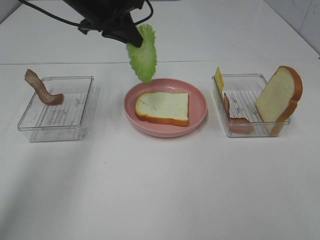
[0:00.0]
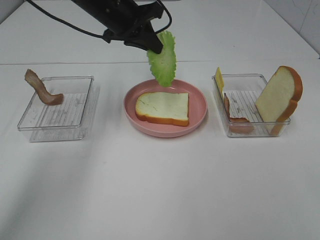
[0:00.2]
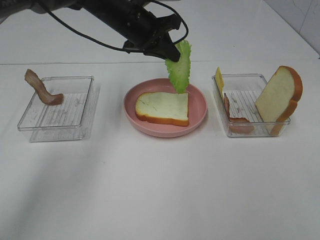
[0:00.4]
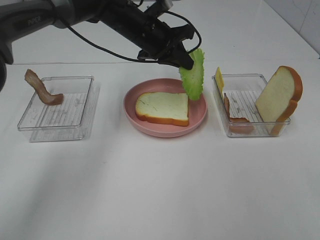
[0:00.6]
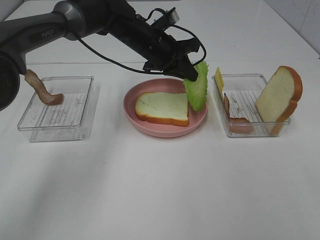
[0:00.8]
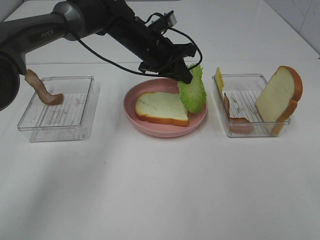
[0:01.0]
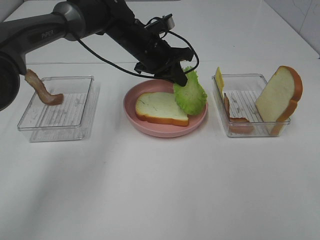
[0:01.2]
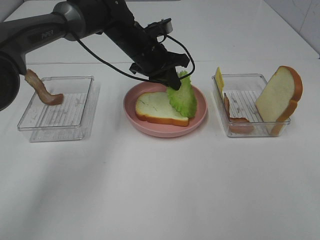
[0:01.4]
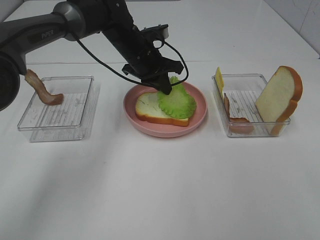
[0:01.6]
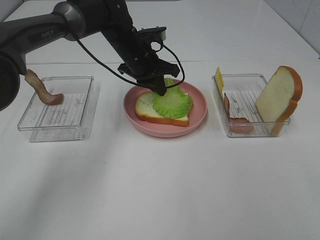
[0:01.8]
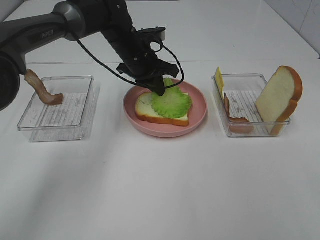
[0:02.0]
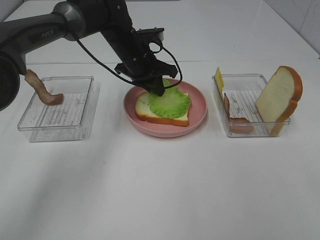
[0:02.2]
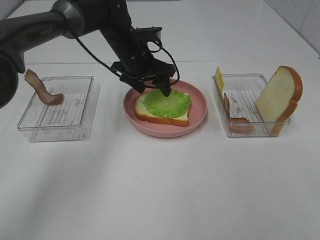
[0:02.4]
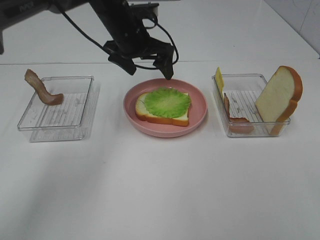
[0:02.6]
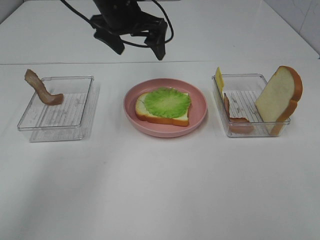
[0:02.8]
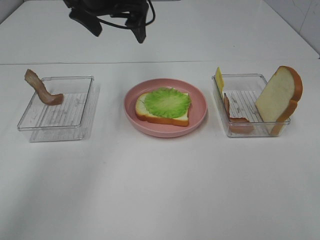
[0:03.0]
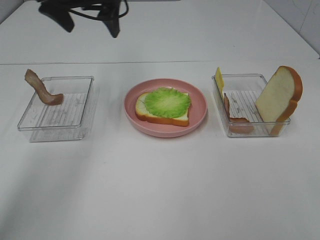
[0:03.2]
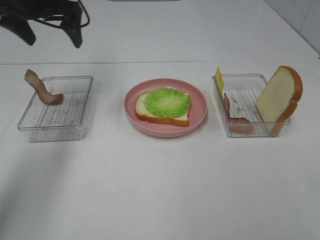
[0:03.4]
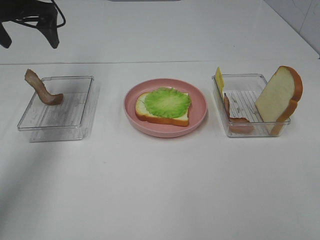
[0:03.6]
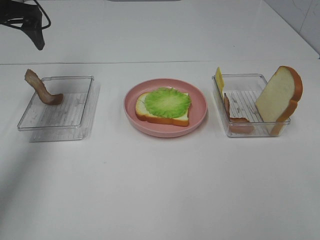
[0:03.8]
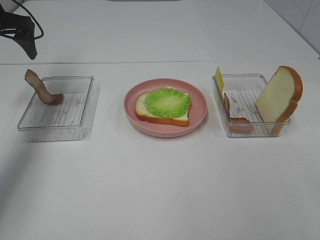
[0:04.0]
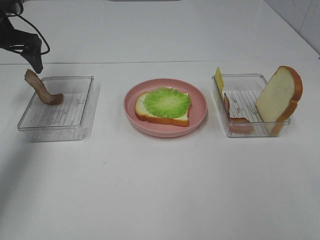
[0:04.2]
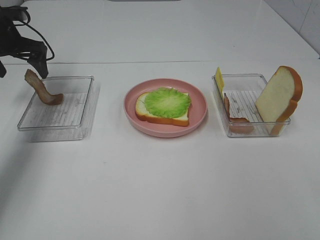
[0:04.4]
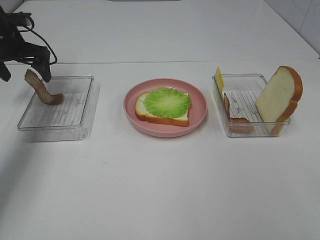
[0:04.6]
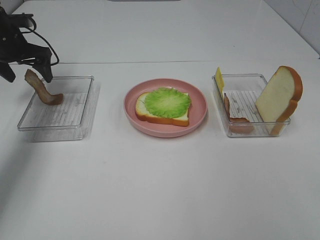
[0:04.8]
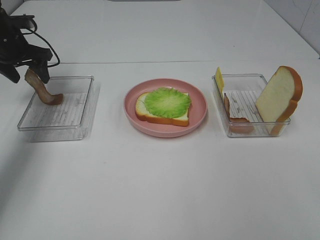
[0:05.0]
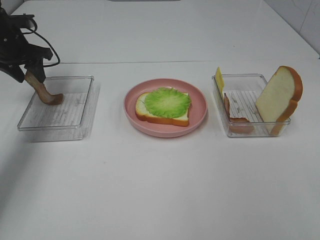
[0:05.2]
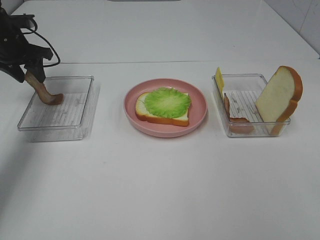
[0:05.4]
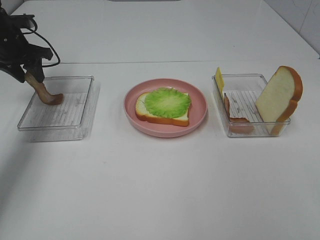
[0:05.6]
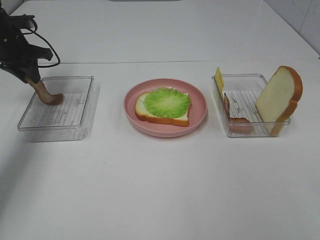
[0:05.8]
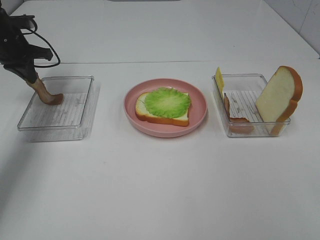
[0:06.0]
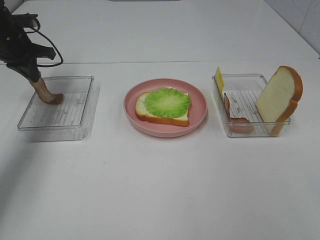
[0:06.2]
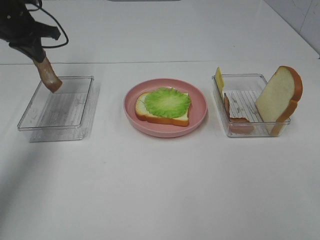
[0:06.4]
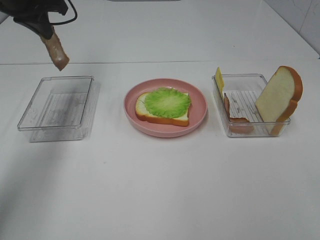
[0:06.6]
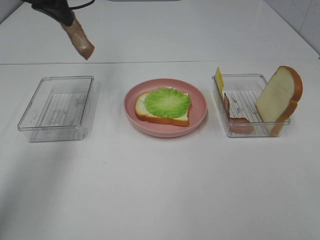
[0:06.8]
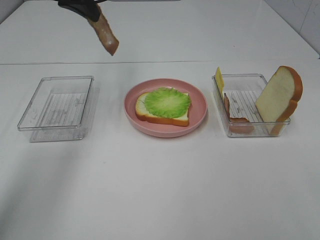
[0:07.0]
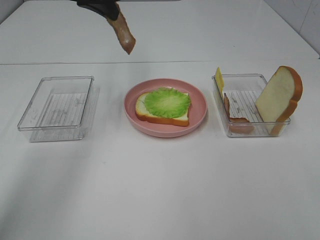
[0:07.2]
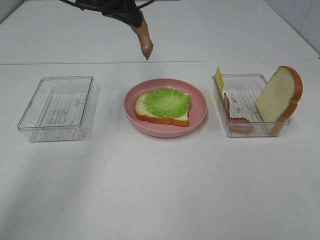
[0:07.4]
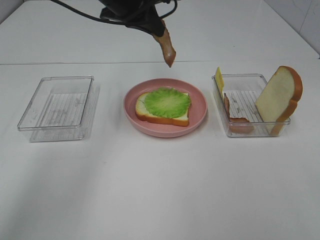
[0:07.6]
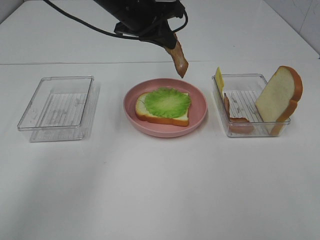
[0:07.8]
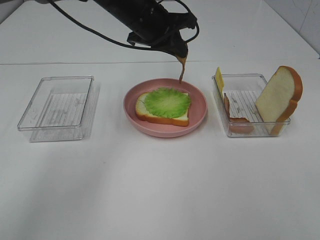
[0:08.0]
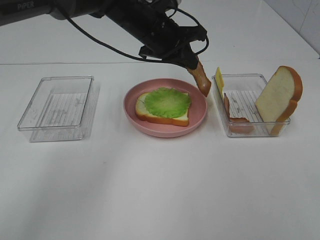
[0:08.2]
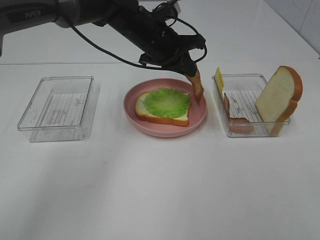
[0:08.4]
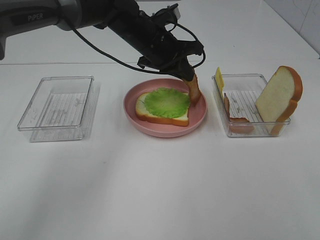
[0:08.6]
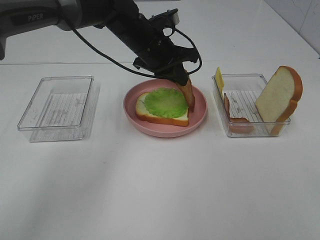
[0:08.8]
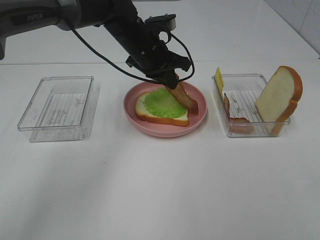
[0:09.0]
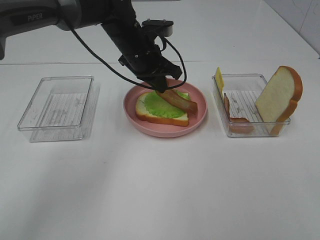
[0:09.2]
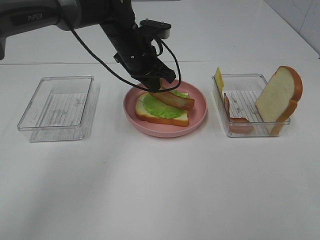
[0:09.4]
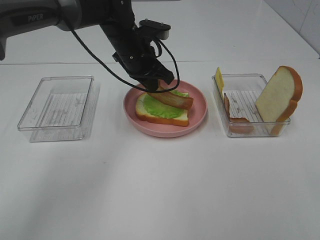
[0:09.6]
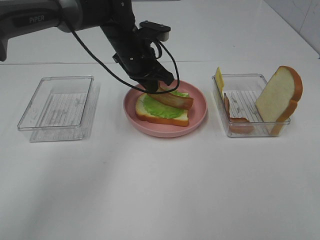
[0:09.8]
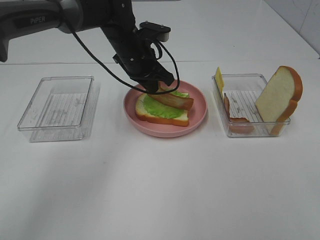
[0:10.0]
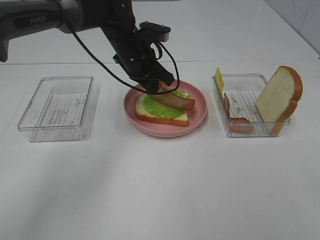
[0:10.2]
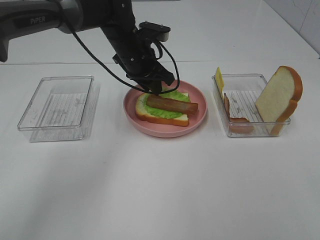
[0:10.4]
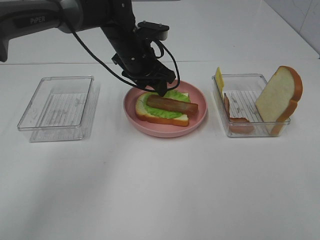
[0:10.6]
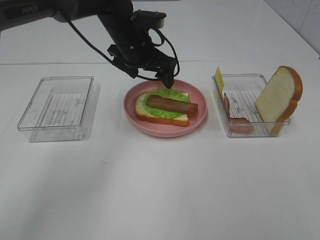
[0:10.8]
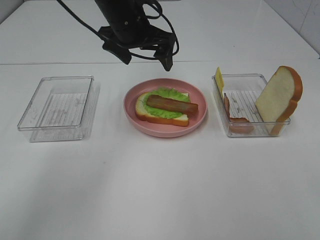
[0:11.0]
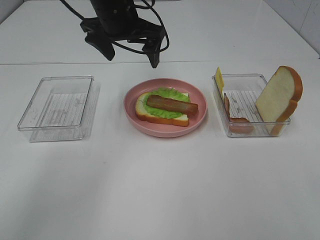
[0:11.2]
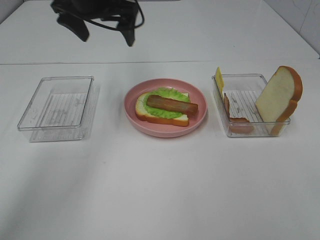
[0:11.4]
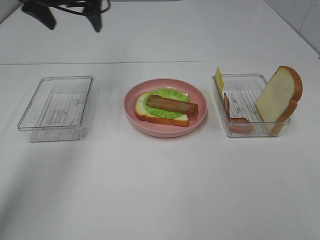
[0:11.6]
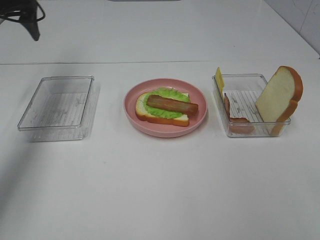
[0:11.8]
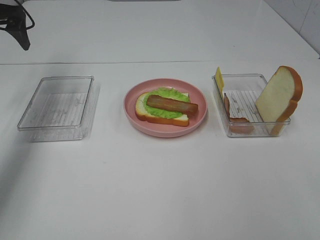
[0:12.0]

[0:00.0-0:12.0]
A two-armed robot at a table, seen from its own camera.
Task of the whole recording: Make sandwiches.
Step, 0:00.0 to 0:02.6: Left hand:place the lettuce slice on the bread slice.
Step, 0:02.8 to 0:06.2: Left hand:grab the bacon.
Step, 0:06.4 to 0:10.6: Left hand:place bacon on lettuce slice.
0:00.0 to 0:01.6: The left gripper shifts about 15 cm downward and to the right.
0:01.6 to 0:03.0: The left gripper goes some 15 cm upward and to the left, and opens up.
0:03.0 to 0:04.4: The left gripper goes about 25 cm to the left and downward.
0:04.4 to 0:06.0: The left gripper closes its fingers.
0:06.0 to 0:07.6: The left gripper goes about 25 cm to the right and upward.
0:07.6 to 0:09.0: The left gripper travels downward by some 10 cm.
0:09.0 to 0:10.4: The grippers move only a little.
0:10.4 to 0:12.0: The left gripper is displaced to the left by roughly 30 cm, and opens its fingers.

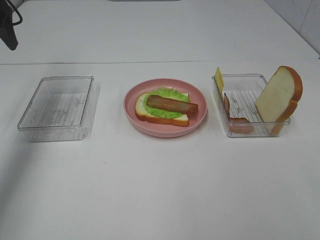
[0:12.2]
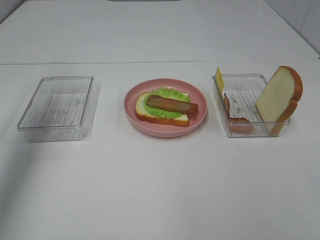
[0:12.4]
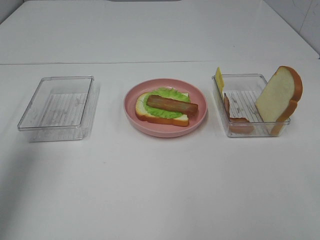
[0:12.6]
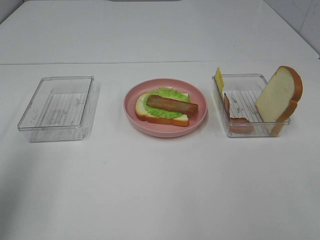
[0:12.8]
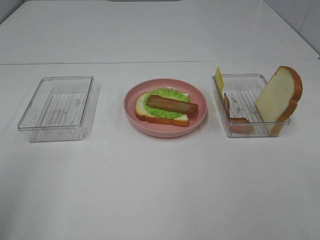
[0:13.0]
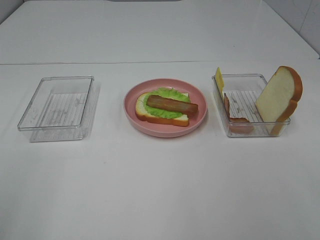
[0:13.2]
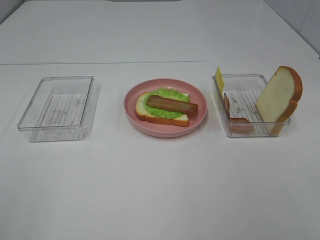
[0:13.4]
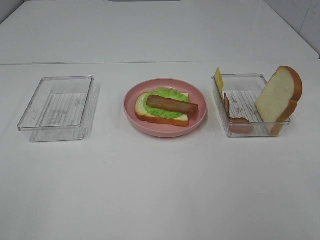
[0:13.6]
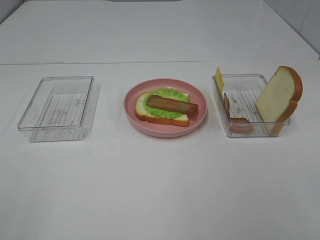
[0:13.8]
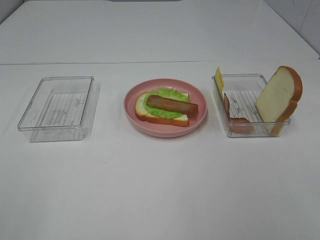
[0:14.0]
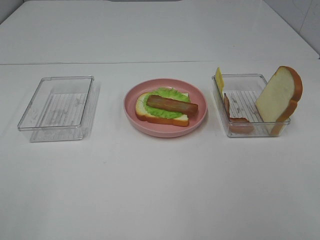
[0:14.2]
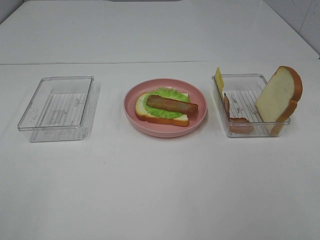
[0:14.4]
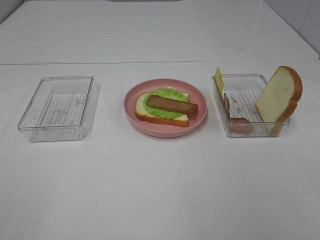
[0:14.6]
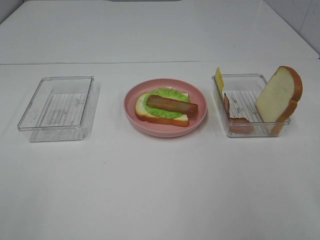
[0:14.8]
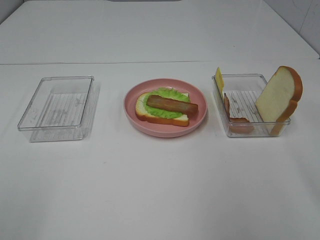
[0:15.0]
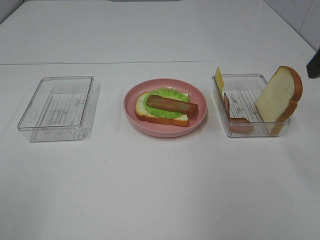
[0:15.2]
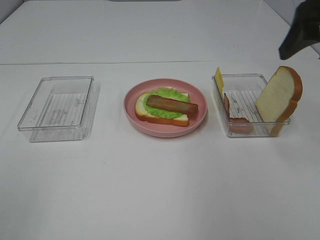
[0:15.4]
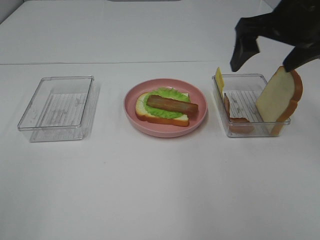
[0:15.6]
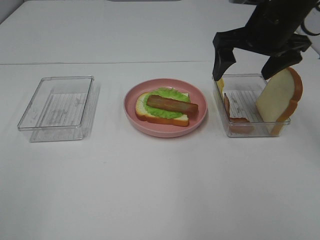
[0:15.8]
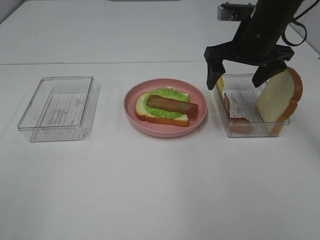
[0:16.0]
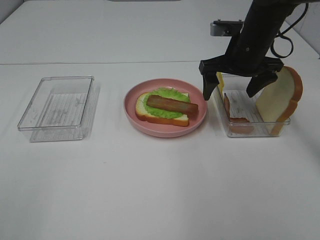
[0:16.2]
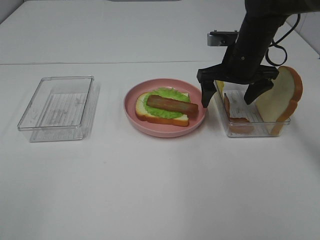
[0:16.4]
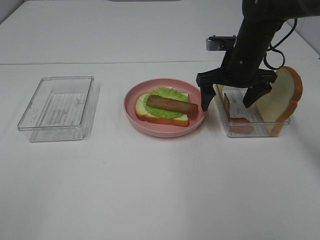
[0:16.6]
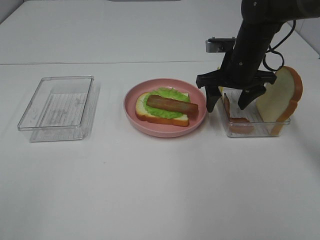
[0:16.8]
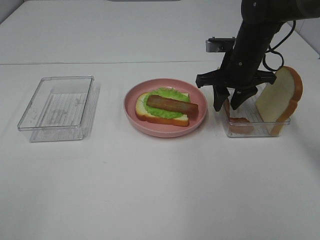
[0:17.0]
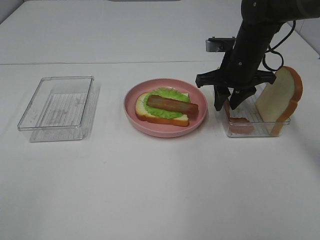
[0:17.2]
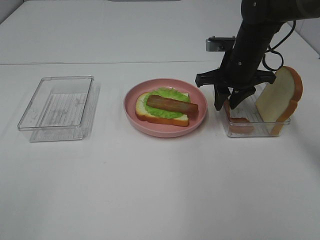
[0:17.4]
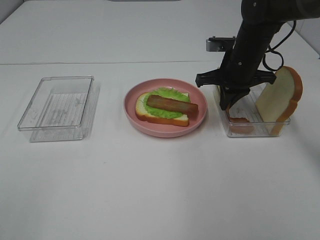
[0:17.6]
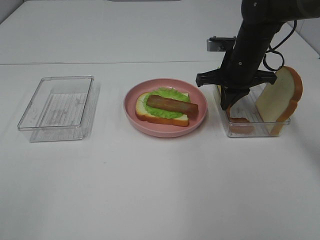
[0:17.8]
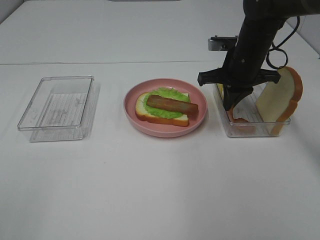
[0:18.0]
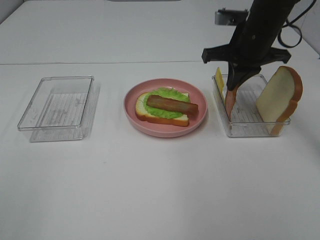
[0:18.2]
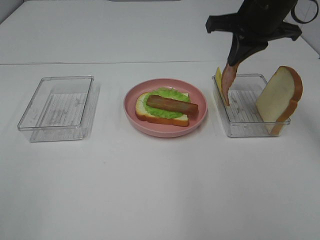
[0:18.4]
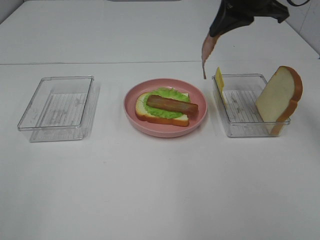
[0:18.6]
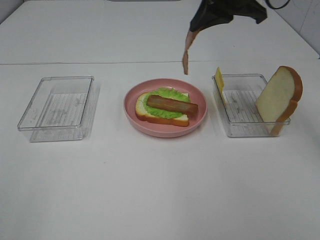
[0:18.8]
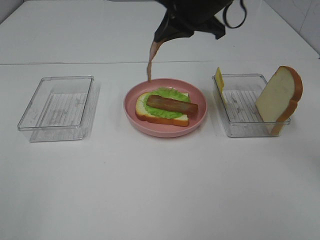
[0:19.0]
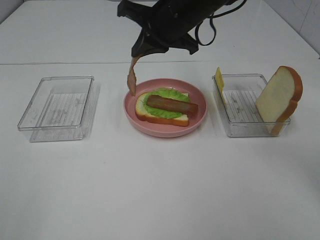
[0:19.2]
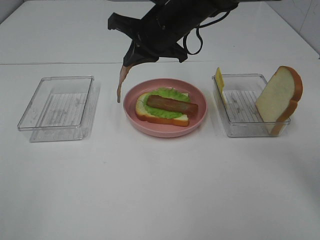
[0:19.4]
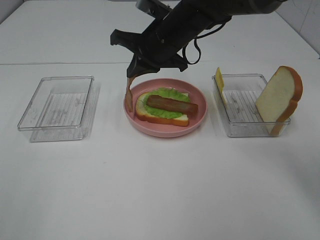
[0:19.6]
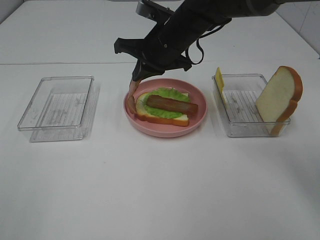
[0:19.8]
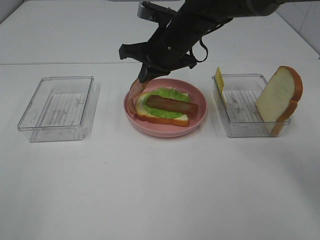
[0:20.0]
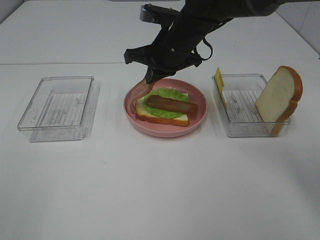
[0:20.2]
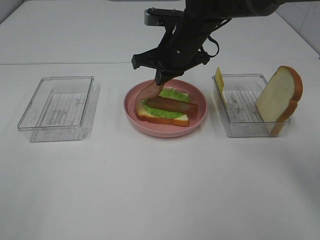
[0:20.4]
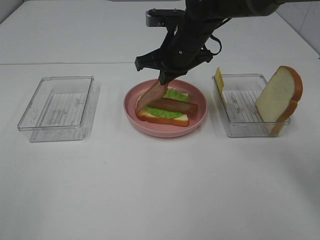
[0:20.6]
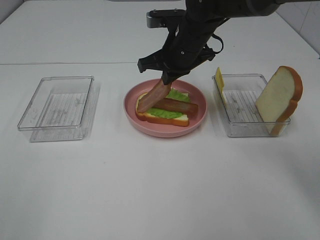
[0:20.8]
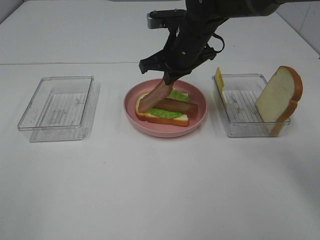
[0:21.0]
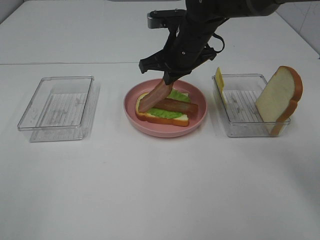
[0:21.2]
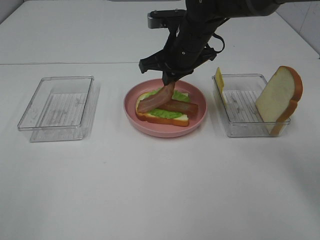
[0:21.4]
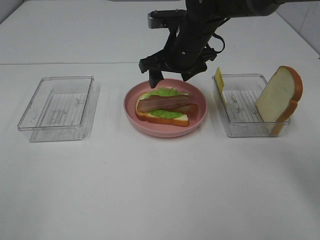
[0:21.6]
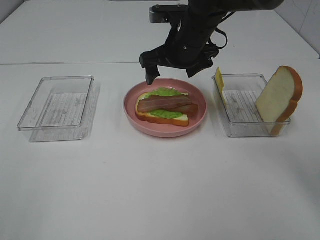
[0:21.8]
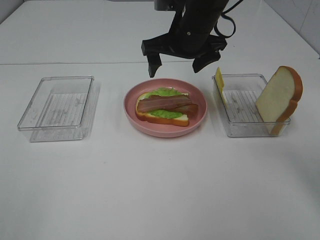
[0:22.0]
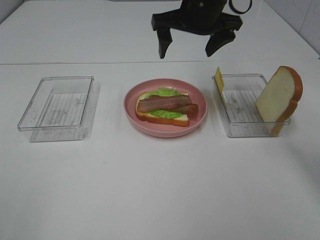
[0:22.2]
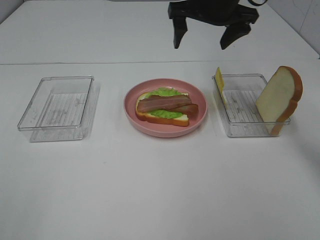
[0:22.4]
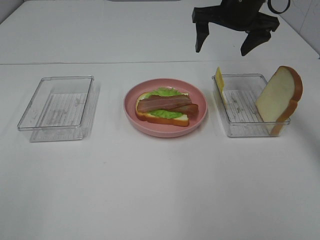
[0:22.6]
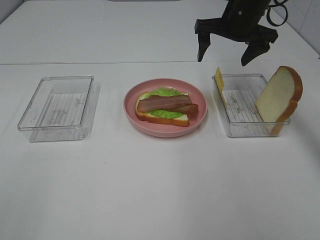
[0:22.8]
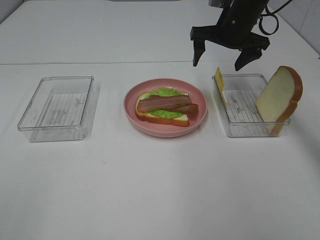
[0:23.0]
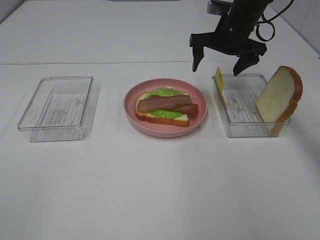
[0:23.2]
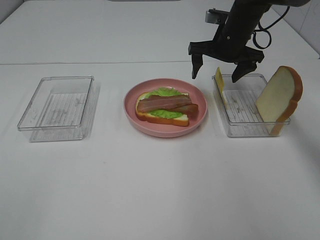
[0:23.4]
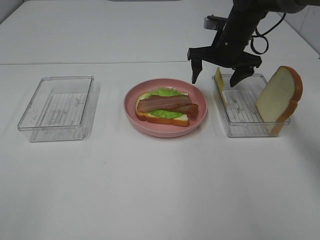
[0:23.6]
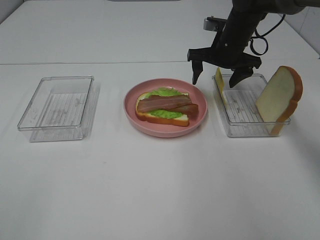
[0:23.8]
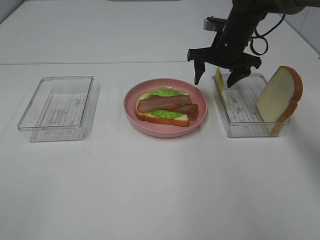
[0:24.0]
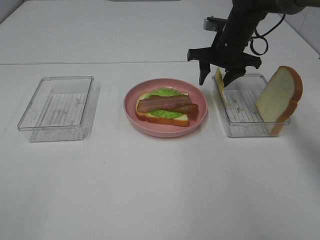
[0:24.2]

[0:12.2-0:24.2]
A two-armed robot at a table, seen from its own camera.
Task of the whole recording: Make sandwiches.
Step, 0:12.2 to 0:17.8: Right hand:grab the bacon.
Step, 0:18.0 to 0:21.8: Right hand:place bacon on bacon.
0:12.2 to 0:13.8: The left gripper shifts approximately 40 cm backward.
0:15.2 to 0:16.6: The right gripper goes about 25 cm forward, downward and to the left.
0:16.6 to 0:18.2: The right gripper moves upward, approximately 5 cm, and closes.
0:18.2 to 0:19.8: The right gripper travels to the left by approximately 15 cm.
0:21.2 to 0:22.6: The right gripper heads to the right and upward, covering some 10 cm, and opens its fingers.
0:22.6 to 0:24.2: The right gripper is displaced downward by some 10 cm, and closes.
